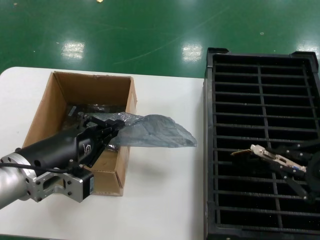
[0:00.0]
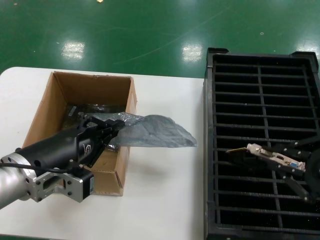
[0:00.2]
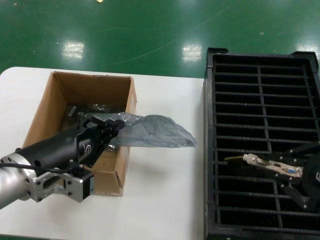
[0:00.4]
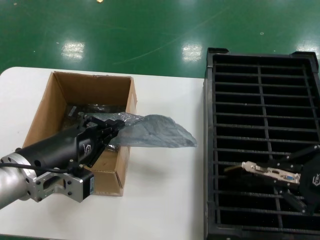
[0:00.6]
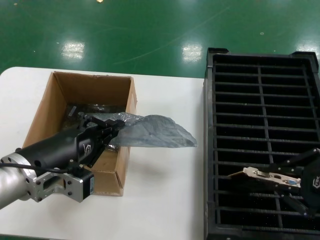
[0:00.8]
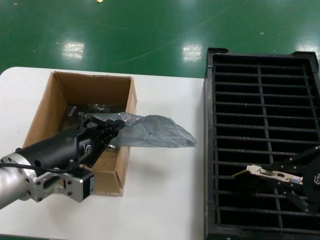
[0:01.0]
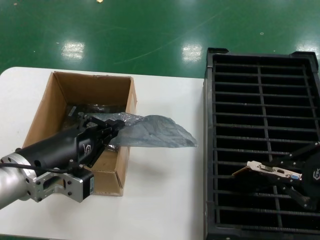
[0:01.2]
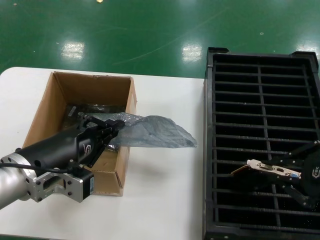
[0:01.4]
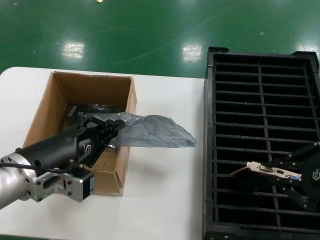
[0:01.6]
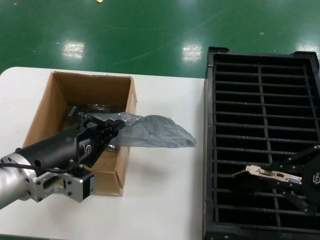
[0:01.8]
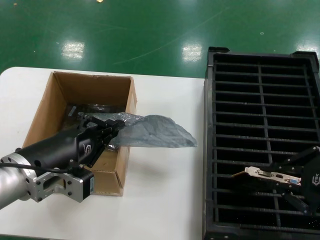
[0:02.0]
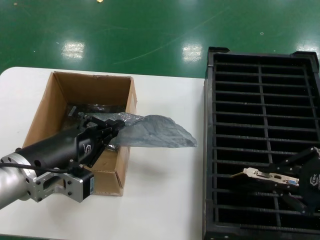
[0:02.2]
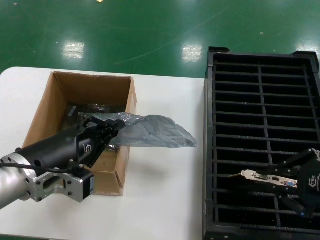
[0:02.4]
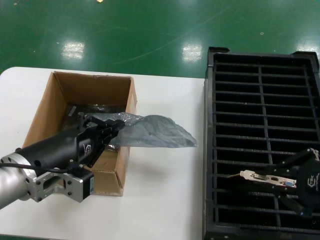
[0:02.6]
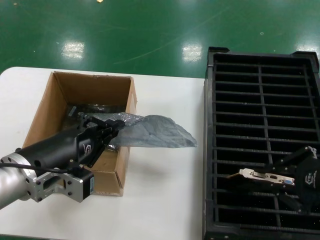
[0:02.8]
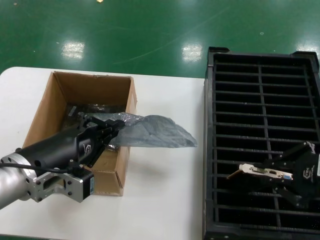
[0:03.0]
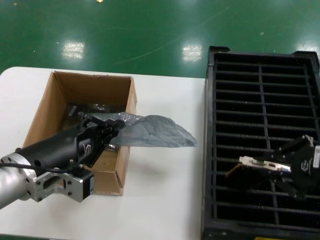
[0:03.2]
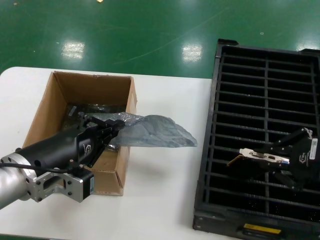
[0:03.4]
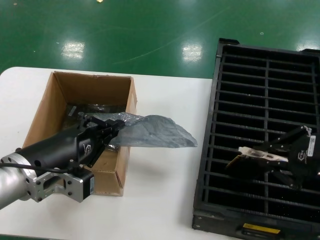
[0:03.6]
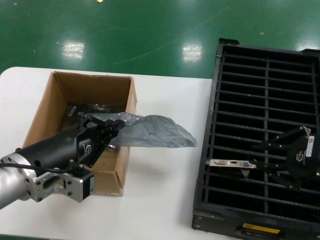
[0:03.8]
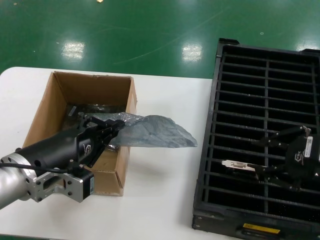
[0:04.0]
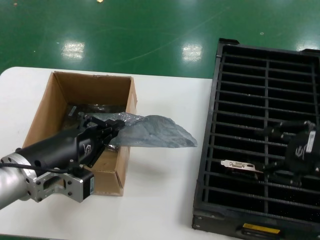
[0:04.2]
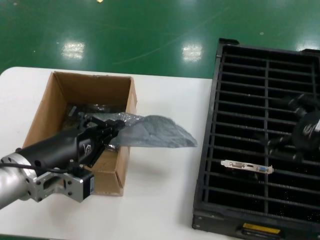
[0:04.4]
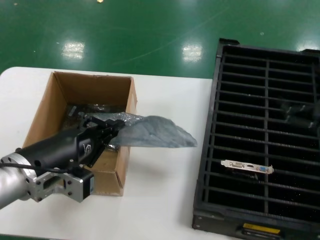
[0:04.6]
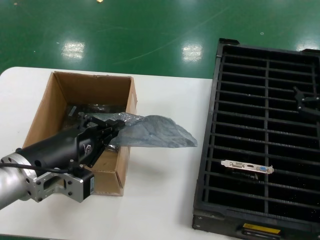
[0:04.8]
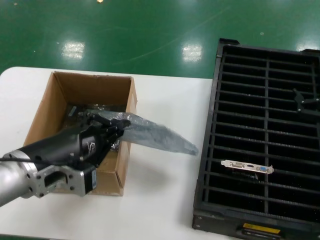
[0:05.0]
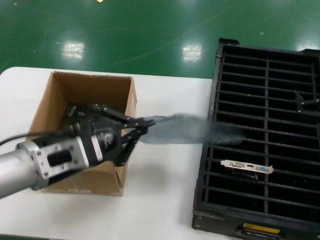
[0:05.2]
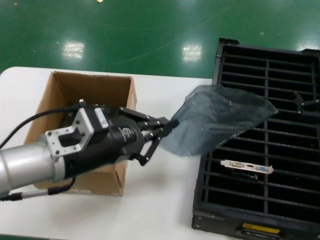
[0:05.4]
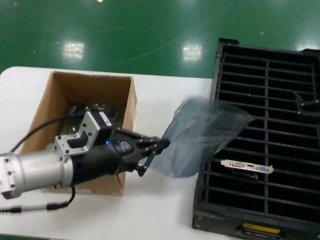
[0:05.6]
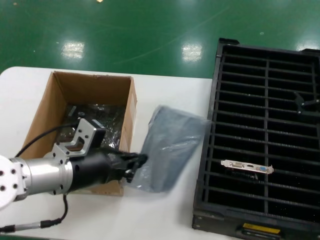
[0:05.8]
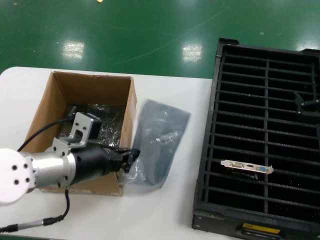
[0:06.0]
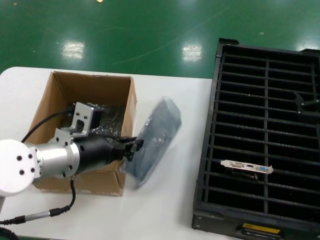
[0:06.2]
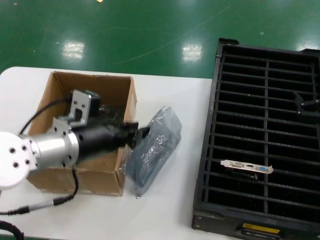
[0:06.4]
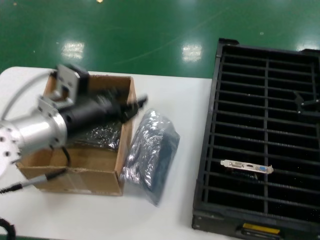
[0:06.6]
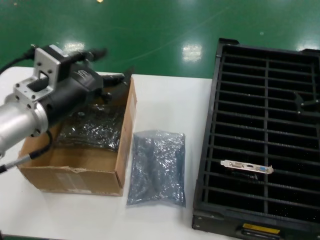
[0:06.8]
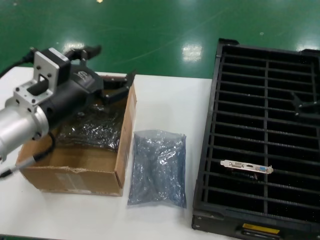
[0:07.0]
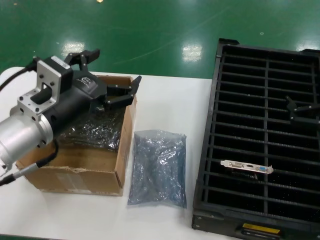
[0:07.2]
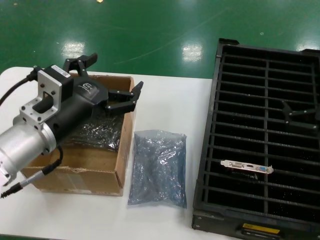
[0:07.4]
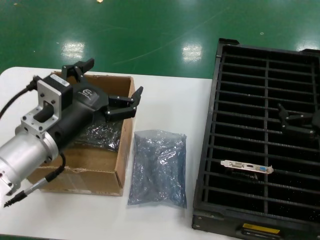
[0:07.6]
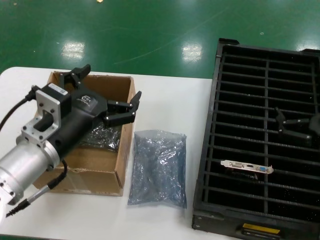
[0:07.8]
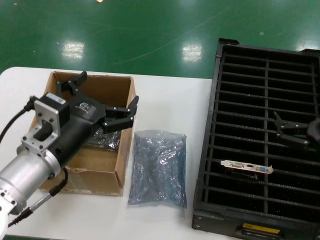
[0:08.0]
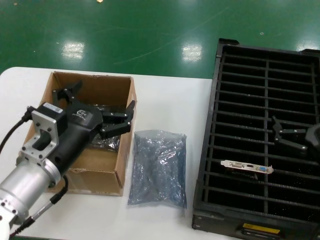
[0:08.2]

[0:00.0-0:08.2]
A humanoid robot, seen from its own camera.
Task of the whole recording: take out graphics card from box remove packaging put into black container.
Step, 0:00.0 to 0:04.2: Place the hard disk in the hard disk enclosure.
Step, 0:04.4 to 0:07.0: Place the down the bag.
0:00.0 to 0:03.2: The hands move only a little.
0:03.2 to 0:05.0: The right hand shifts by approximately 5 cm.
0:05.0 to 0:06.6: The left hand shifts some 10 cm forward.
0:06.6 to 0:08.2: The left hand heads downward and backward, covering about 10 cm, while the right hand travels downward by about 10 cm.
